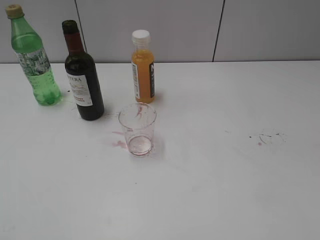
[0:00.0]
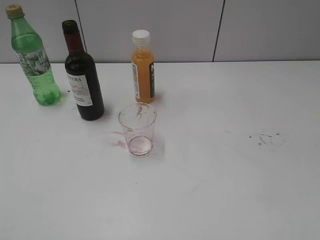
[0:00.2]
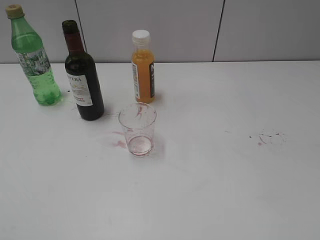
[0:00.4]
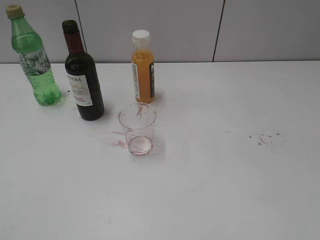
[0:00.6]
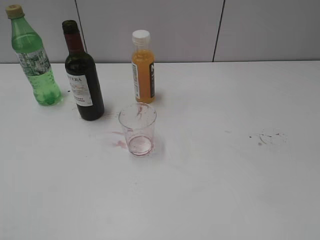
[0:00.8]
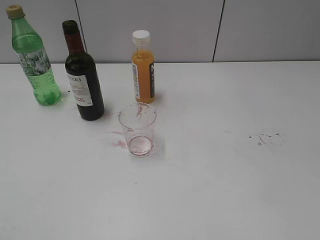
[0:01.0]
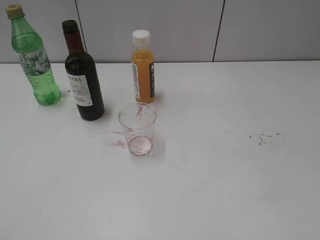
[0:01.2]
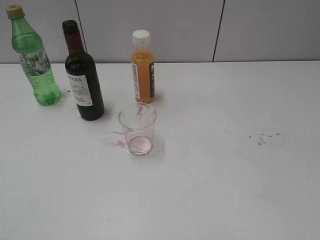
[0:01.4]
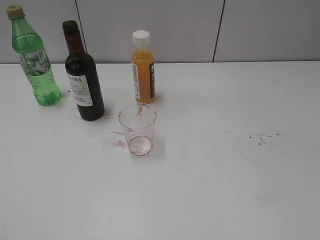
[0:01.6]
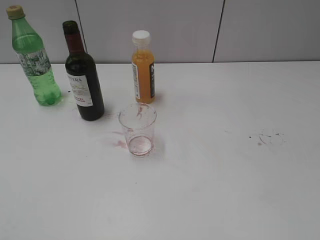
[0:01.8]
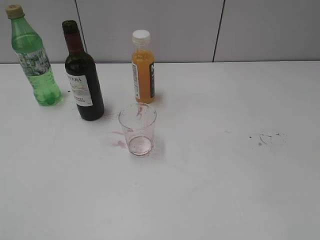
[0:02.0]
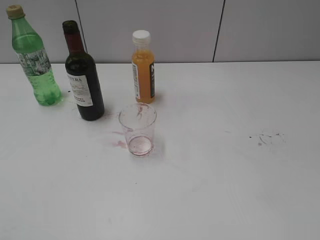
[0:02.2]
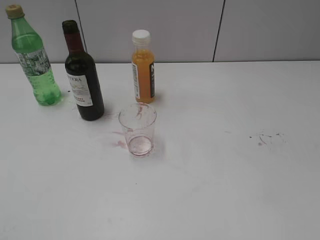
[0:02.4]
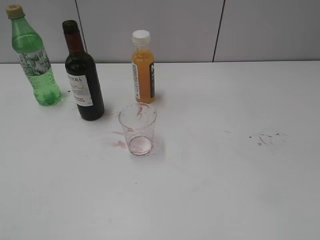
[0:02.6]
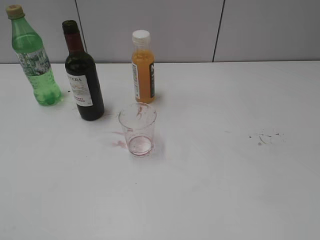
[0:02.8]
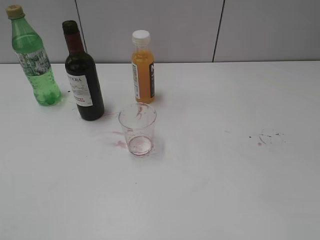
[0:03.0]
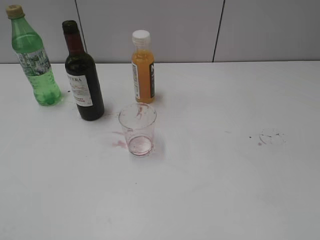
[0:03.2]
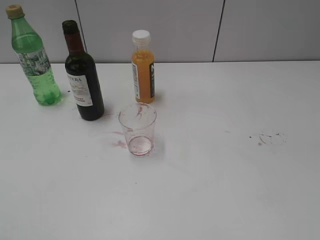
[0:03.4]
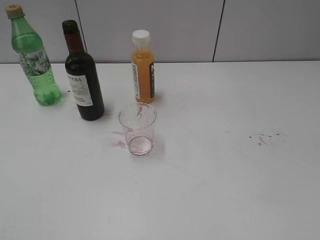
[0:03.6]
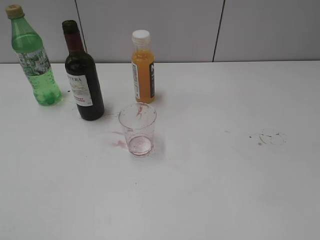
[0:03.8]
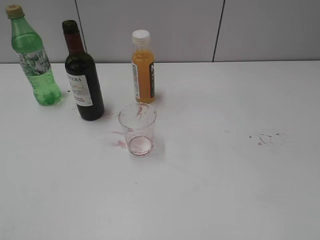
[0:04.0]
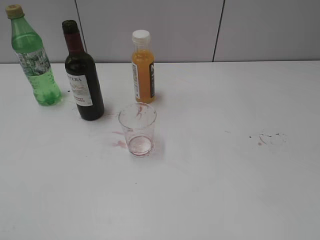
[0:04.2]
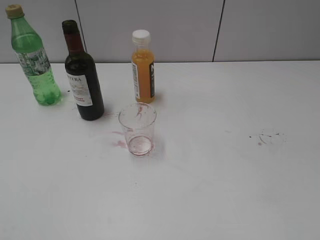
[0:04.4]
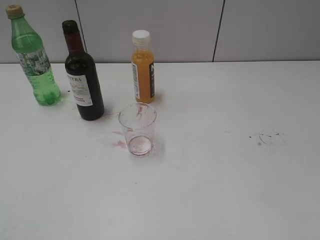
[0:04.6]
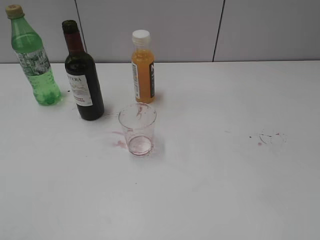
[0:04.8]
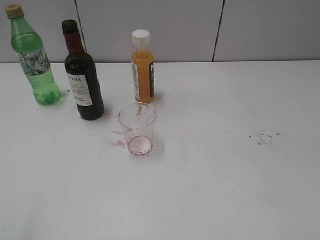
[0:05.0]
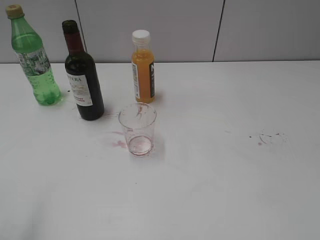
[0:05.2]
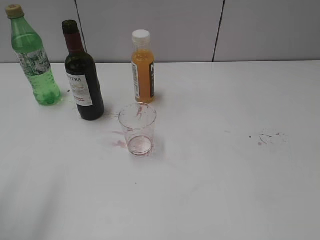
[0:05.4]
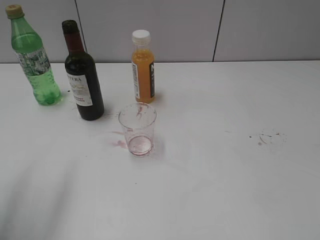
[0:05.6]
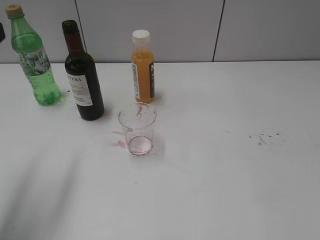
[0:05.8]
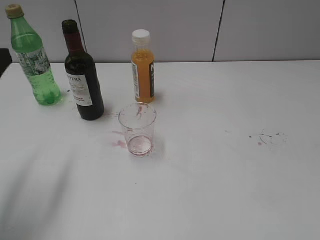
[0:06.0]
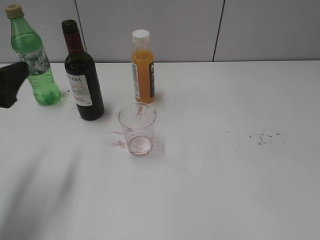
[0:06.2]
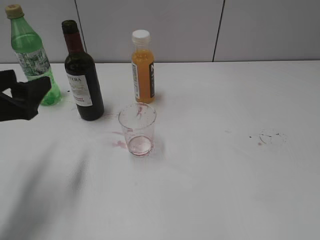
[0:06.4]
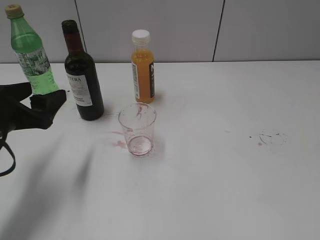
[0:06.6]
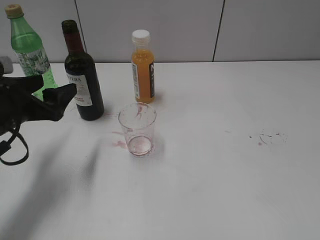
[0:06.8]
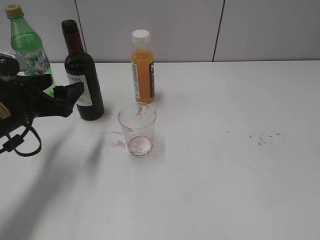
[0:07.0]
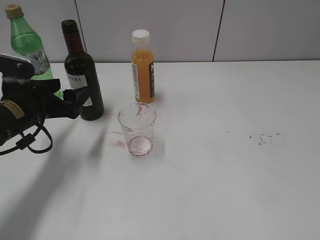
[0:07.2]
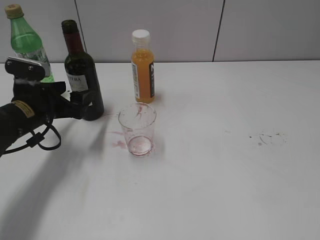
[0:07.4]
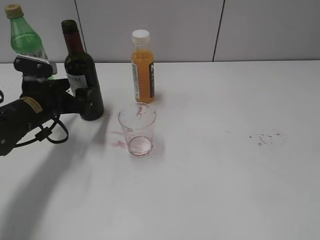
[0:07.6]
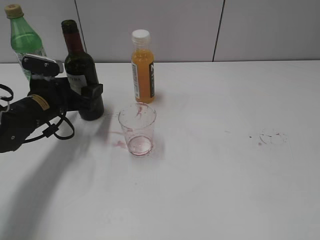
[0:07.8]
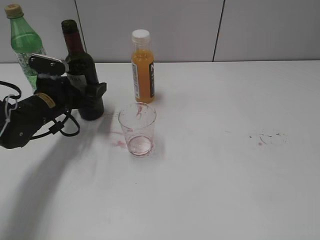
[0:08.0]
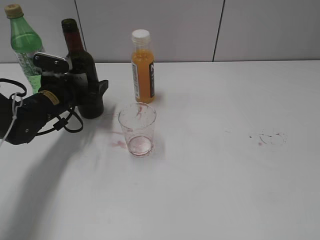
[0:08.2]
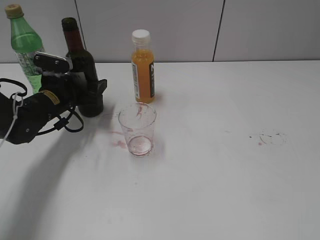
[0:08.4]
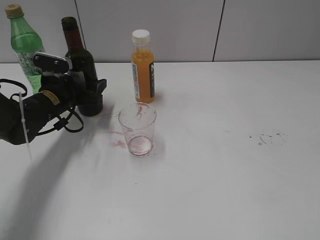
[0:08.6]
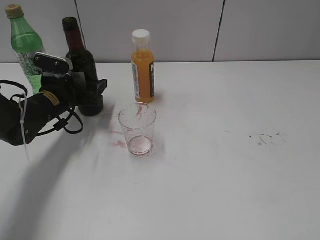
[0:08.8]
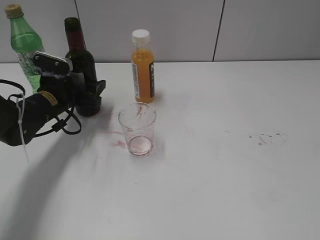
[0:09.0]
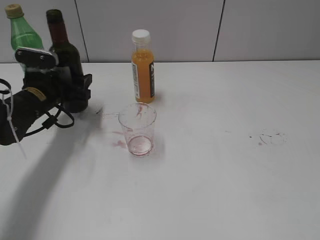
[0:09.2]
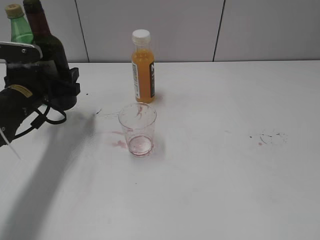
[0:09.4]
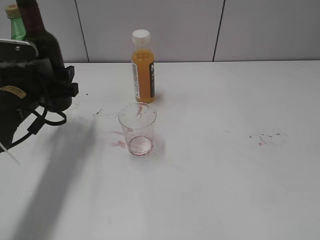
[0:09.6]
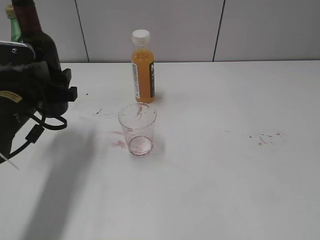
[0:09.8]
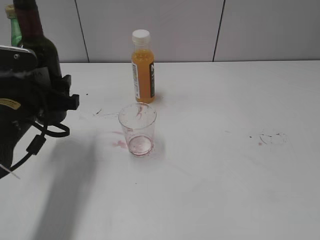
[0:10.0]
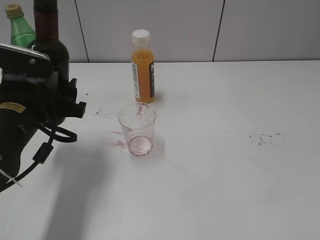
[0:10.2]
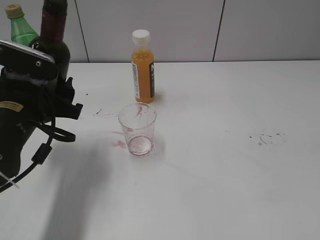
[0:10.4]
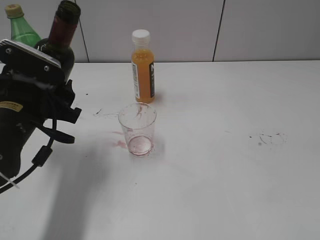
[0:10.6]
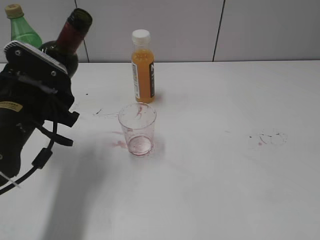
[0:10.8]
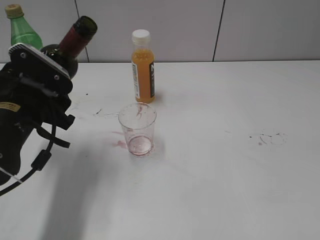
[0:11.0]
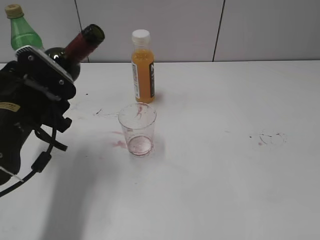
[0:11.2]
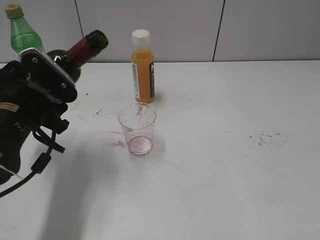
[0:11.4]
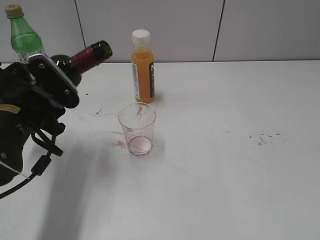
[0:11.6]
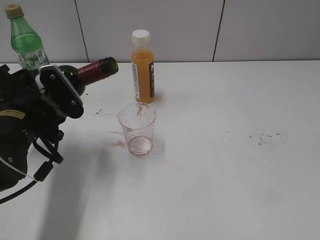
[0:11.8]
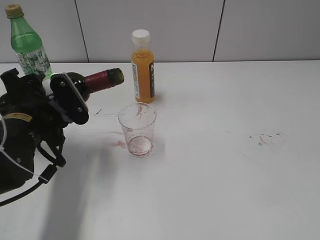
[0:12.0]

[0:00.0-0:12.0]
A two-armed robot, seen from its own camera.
Step, 0:00.0 to 0:08.6: Grasp the bottle with red wine with left gripper.
0:04.4 to 0:06.0: The left gripper shifts approximately 20 cm forward.
0:06.0 to 0:07.6: The left gripper is displaced downward and forward by approximately 20 cm.
0:07.6 to 0:09.0: The grippers move only a little.
0:09.0 to 0:10.4: The left gripper goes approximately 15 cm backward and upward.

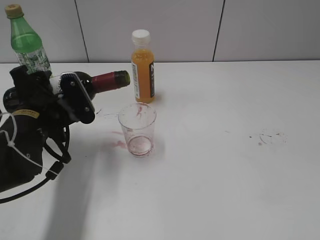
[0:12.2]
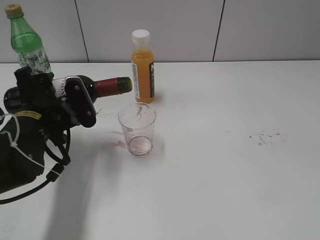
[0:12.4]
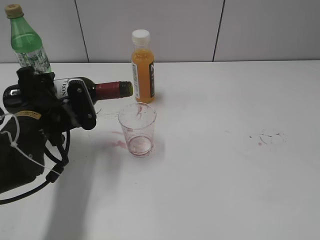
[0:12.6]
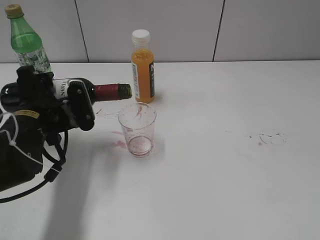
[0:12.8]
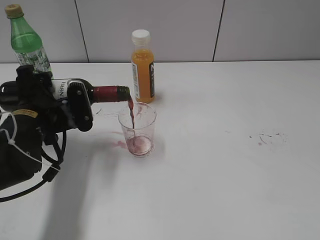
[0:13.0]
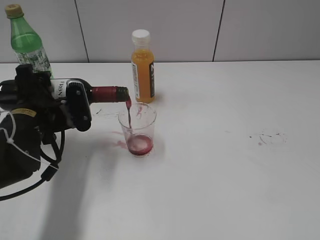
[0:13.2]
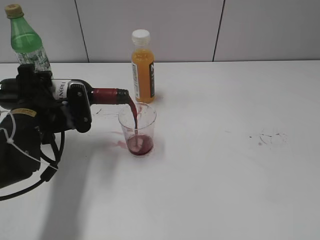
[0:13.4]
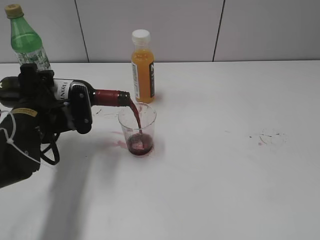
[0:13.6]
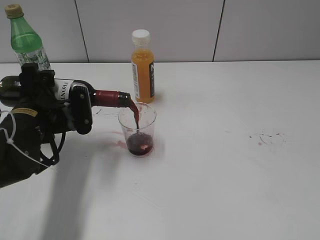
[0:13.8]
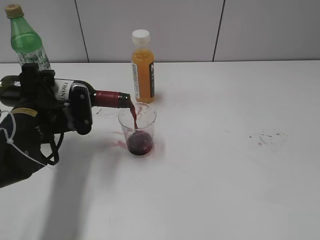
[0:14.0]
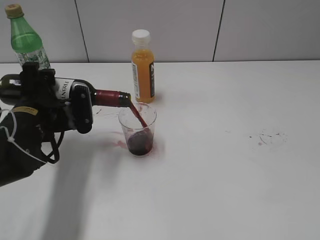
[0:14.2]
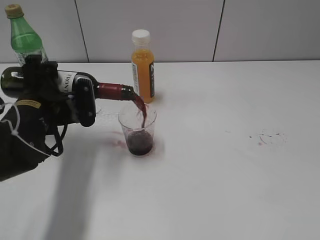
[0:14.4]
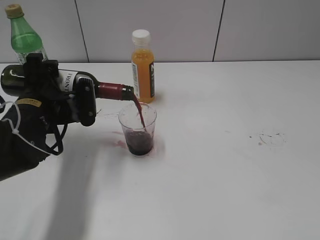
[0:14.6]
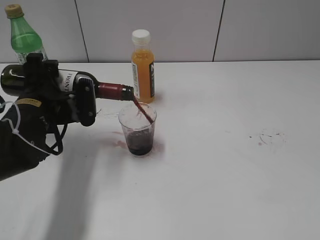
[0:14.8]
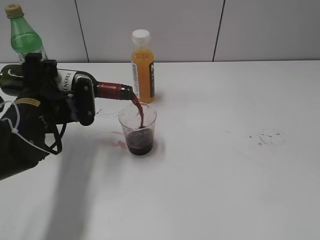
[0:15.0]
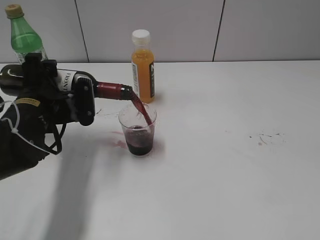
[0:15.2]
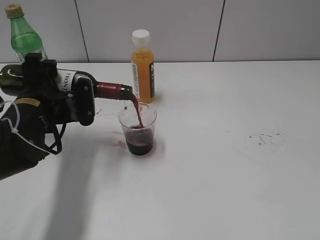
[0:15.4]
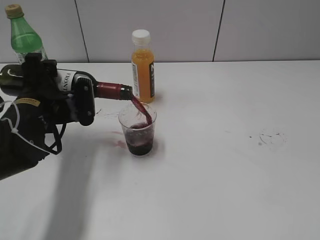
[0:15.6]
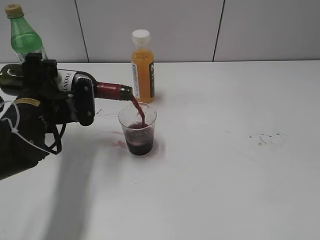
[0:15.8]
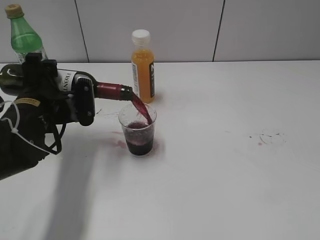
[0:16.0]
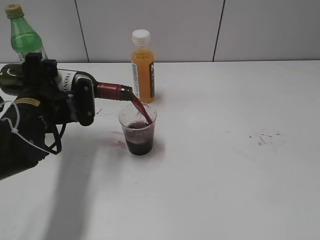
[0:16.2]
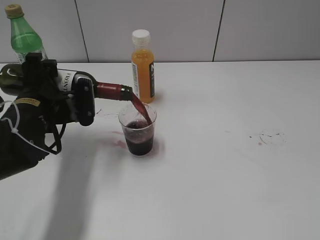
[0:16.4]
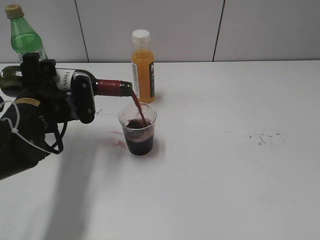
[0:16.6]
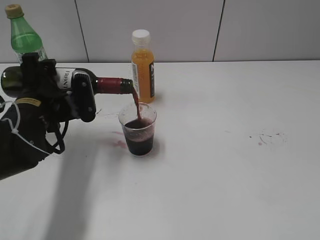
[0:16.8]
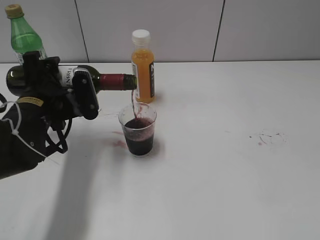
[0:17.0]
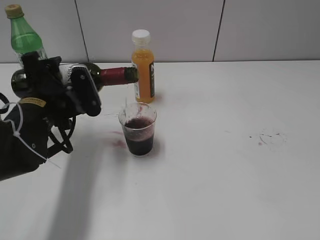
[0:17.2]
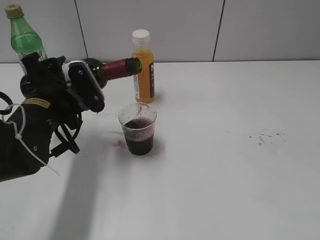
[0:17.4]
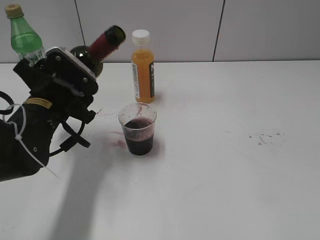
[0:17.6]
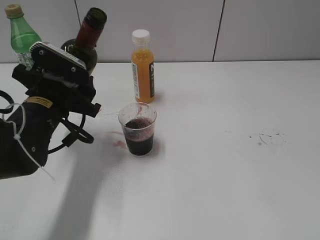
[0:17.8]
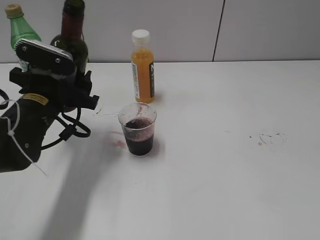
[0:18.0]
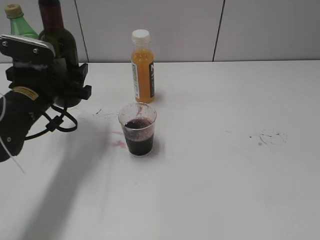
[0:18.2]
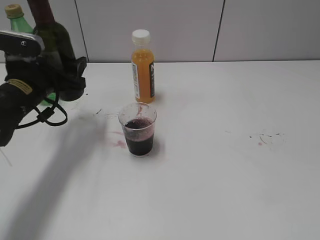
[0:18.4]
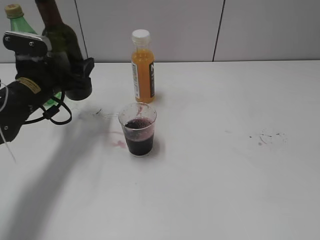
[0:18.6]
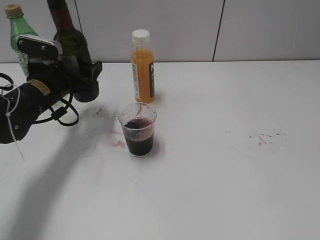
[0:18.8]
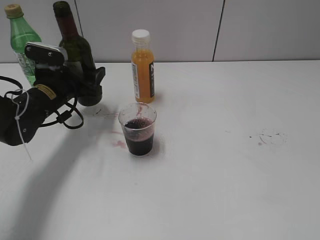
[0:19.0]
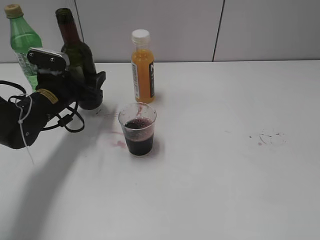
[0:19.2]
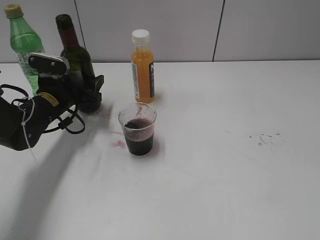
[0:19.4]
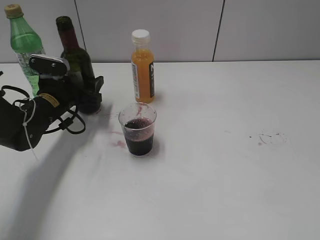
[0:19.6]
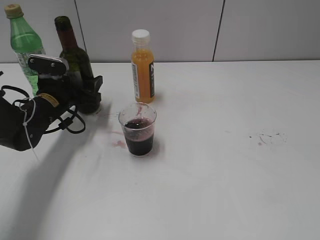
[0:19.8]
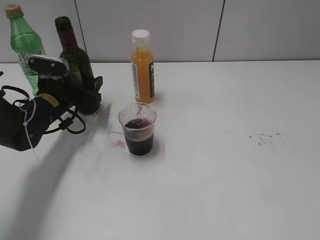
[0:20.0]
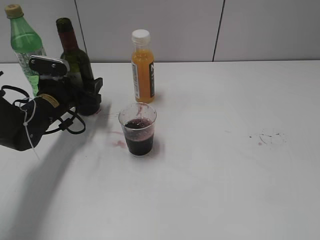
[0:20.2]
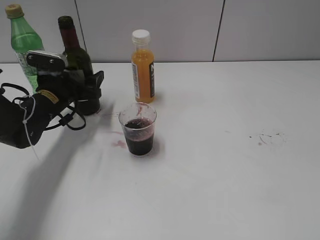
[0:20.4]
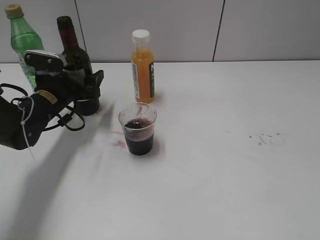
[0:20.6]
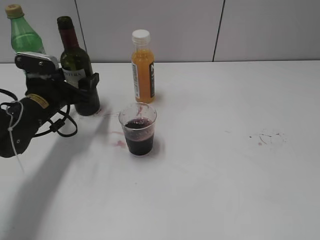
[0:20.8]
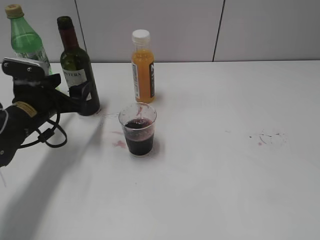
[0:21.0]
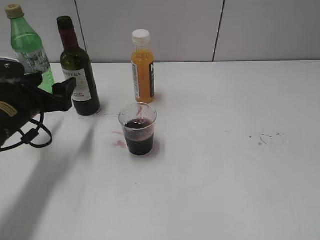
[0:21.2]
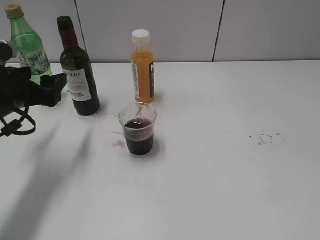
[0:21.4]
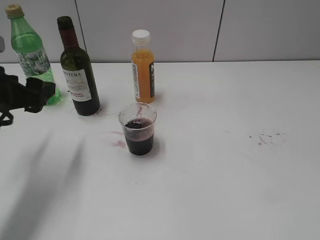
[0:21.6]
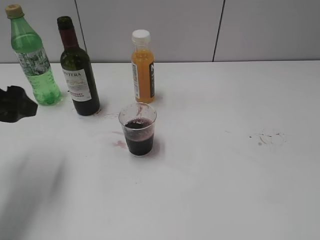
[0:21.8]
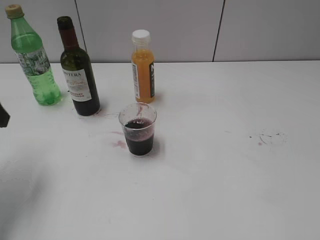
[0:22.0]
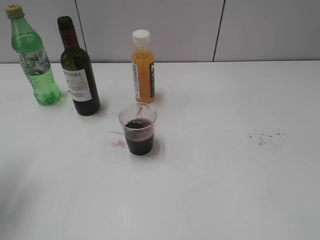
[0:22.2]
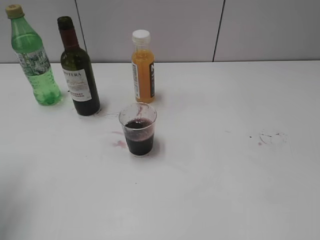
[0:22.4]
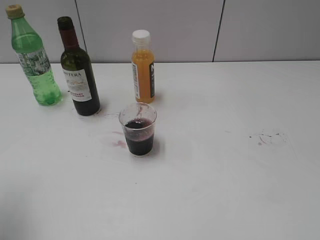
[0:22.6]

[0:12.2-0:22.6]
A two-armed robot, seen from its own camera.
Step, 0:12.2 to 0:17.4: Pour the red wine from bottle to cup with left gripper.
Step, 0:17.6 to 0:21.0: Place the red wine bottle on the table with left gripper.
0:12.2 to 0:13.6: The grippers make only small movements.
0:13.6 to 0:15.2: The grippers make only small movements.
0:15.2 to 0:16.6: Both grippers stay put.
0:18.2 to 0:19.6: The left gripper travels forward and downward by approximately 10 cm.
0:19.6 to 0:21.2: The left gripper goes approximately 10 cm backward.
0:21.2 to 0:22.6: The left gripper shifts roughly 20 cm upward, backward and to the left.
